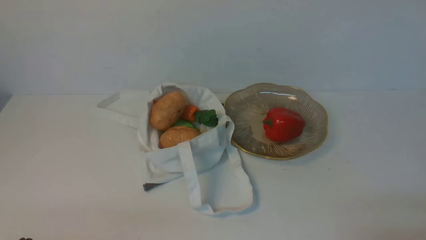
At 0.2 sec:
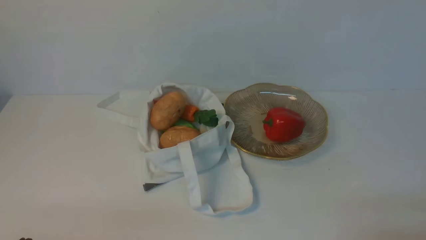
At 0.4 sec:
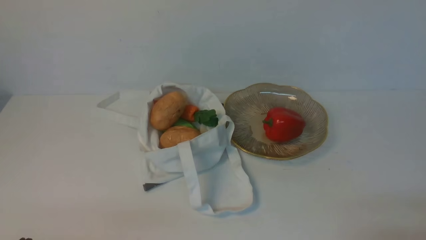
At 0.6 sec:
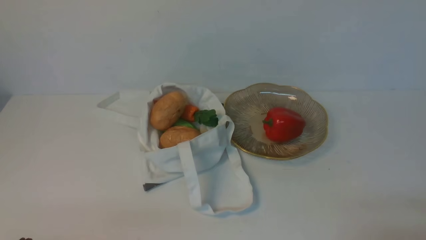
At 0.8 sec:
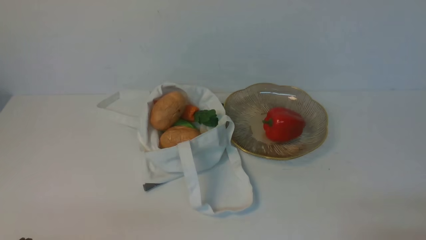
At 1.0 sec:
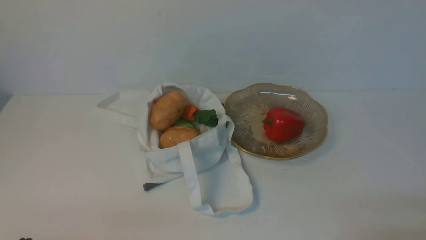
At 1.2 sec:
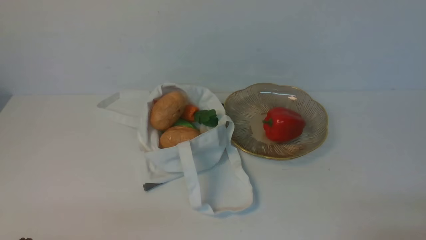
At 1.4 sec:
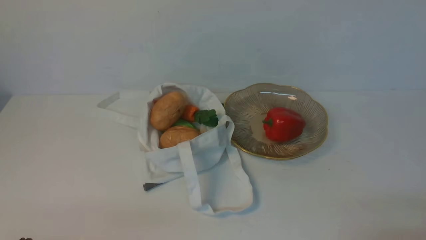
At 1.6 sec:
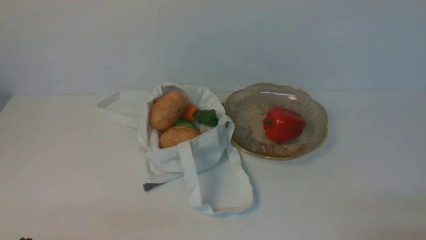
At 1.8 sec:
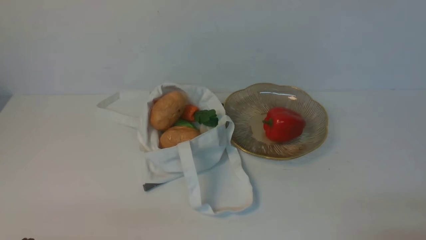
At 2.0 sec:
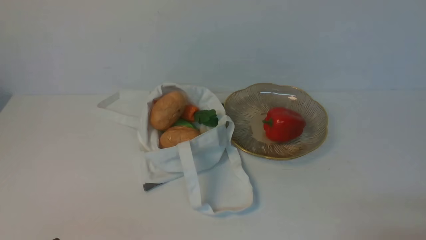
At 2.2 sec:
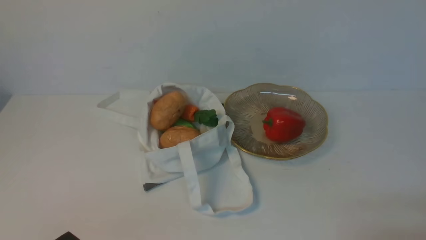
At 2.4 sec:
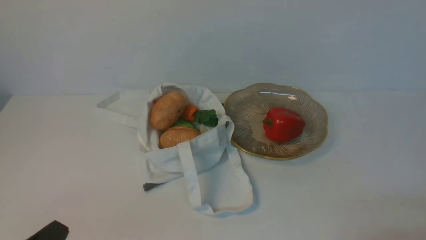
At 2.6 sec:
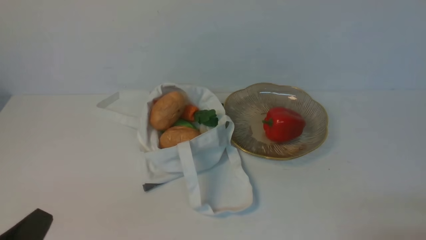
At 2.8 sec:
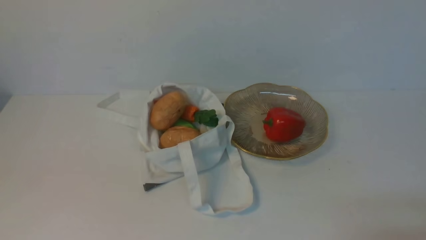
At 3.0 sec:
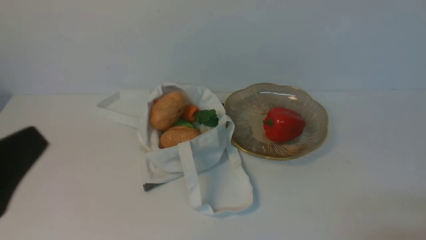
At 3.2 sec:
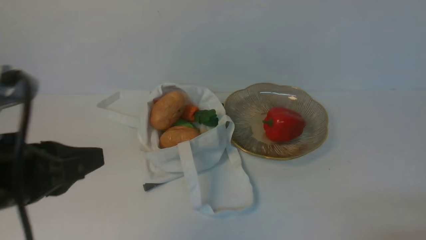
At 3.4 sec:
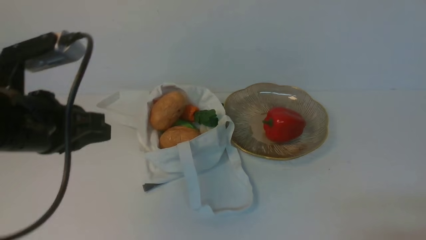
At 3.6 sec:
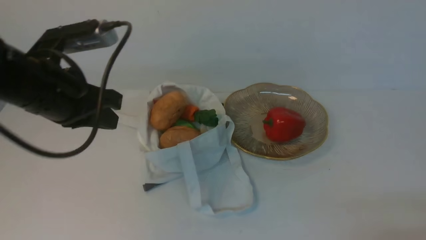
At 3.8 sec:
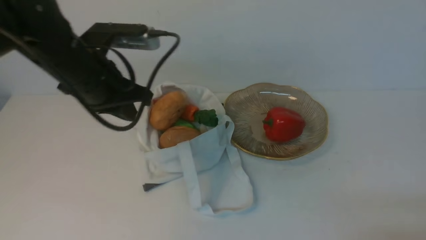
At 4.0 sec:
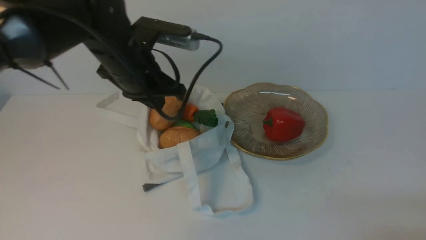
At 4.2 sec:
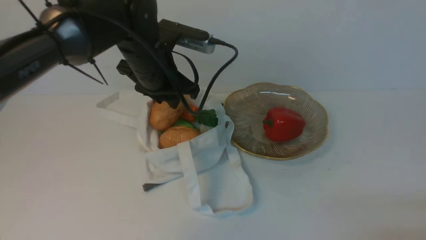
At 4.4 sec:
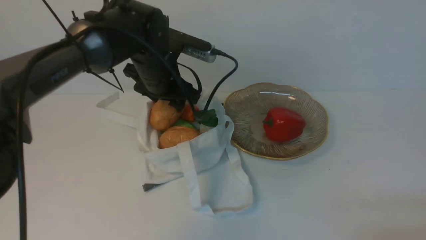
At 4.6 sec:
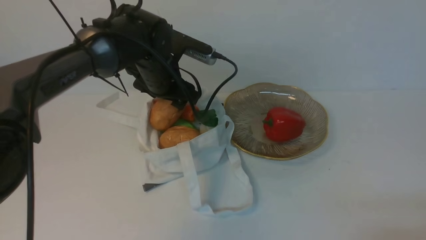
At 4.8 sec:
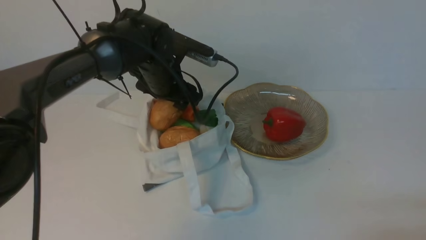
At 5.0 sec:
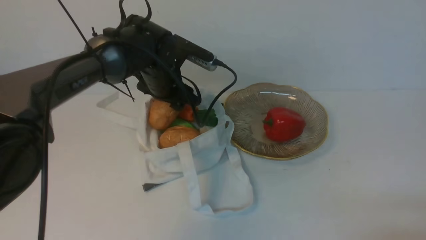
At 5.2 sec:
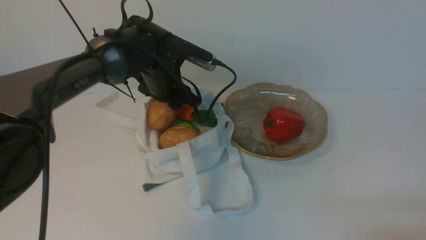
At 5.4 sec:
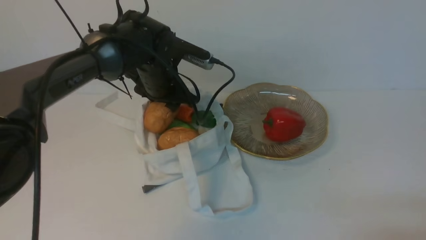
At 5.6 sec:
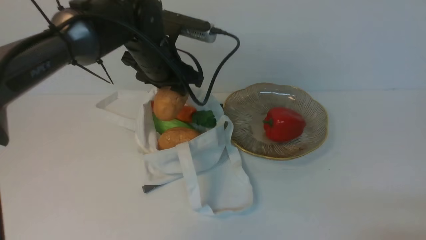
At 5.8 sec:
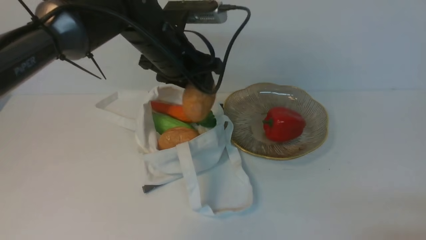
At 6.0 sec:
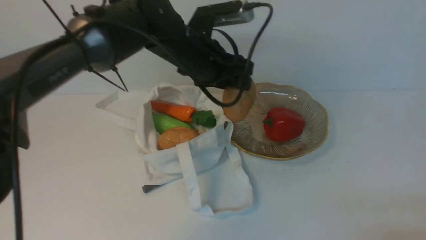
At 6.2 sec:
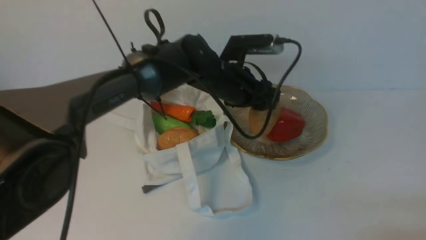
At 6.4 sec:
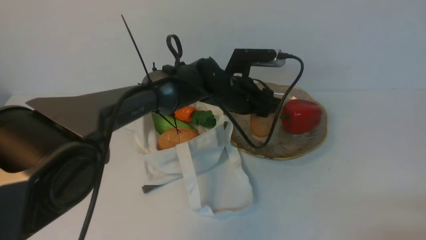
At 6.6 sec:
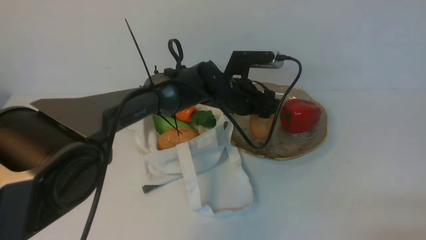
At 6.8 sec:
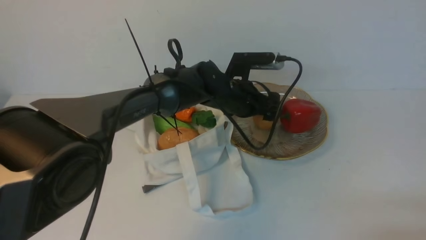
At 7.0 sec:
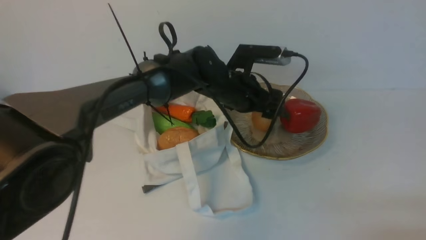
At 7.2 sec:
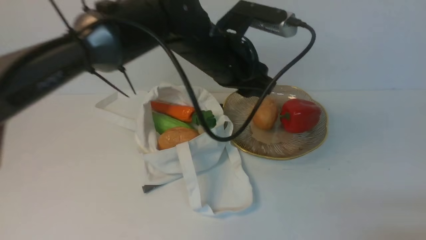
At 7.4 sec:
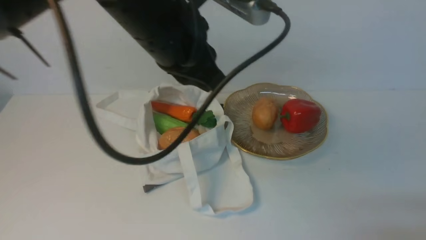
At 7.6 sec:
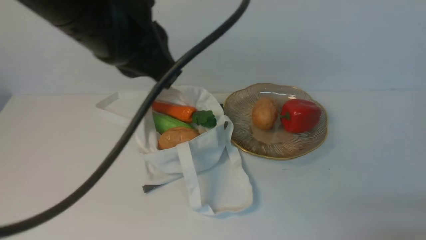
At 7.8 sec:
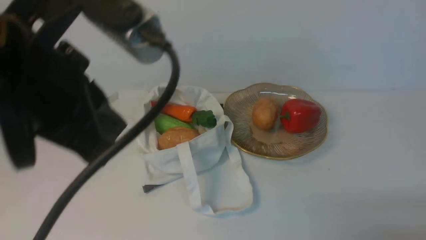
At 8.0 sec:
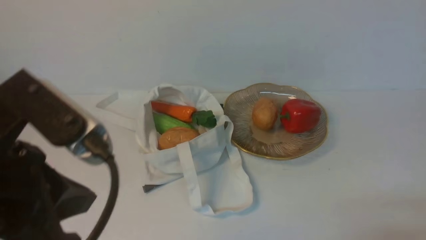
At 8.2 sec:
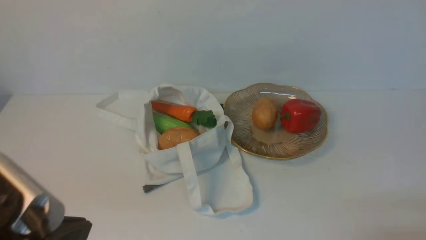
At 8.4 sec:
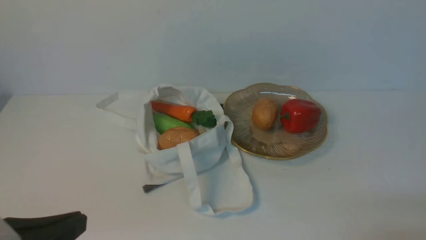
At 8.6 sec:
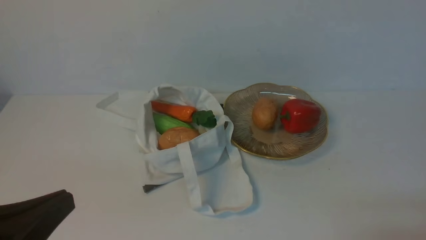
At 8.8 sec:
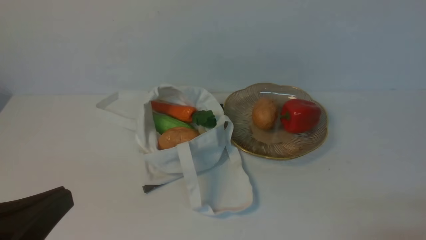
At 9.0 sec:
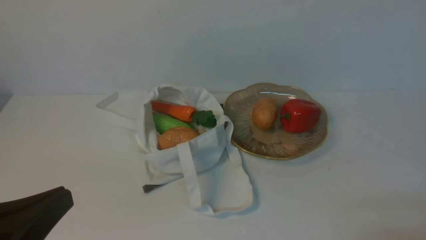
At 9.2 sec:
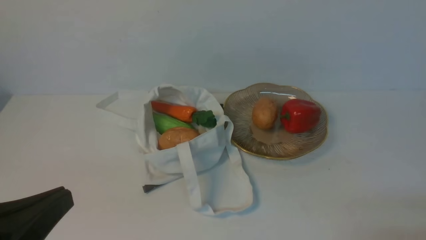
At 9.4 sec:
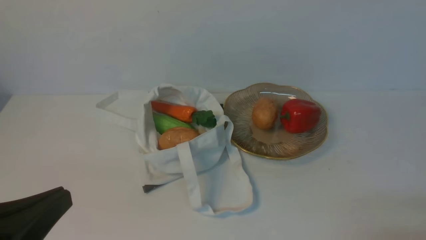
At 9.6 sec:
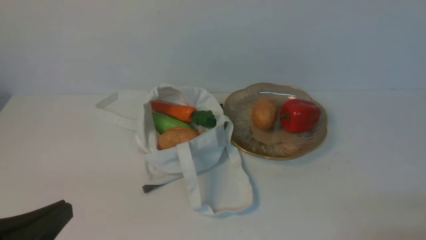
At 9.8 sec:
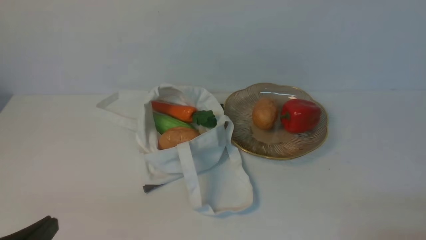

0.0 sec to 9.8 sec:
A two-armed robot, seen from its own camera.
Task of the whole recording: take vegetables from cloth bag on white table place on plate.
Step, 0.0 sec to 5.2 sec: Grasp the potato with left gripper.
Step, 5.4 sec to 7.2 sec: Place the potato on the plate with left gripper.
2.8 sec to 4.2 sec: The left gripper goes approximately 35 cm forward.
4.2 sec to 5.6 sec: The left gripper opens.
5.6 sec to 7.0 sec: The left gripper moves to the right, roughly 10 cm.
7.0 sec to 8.4 sec: The left gripper heads backward and to the left, covering some 40 cm, and closes up.
8.4 sec to 9.8 sec: The left gripper is displaced downward by about 5 cm.

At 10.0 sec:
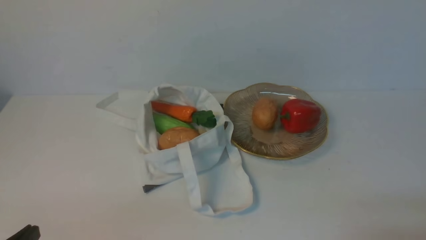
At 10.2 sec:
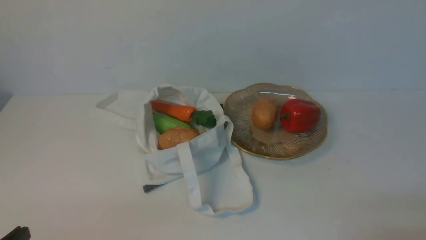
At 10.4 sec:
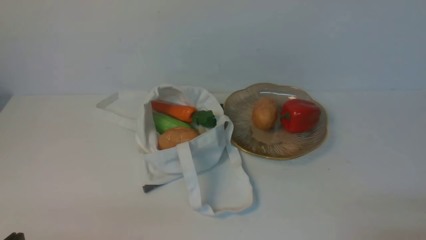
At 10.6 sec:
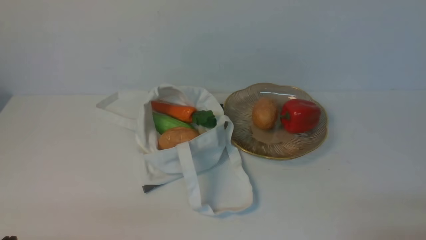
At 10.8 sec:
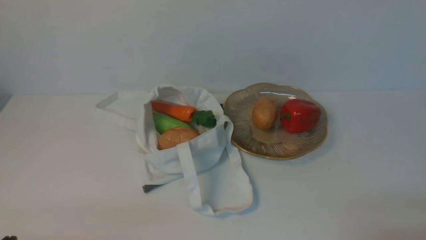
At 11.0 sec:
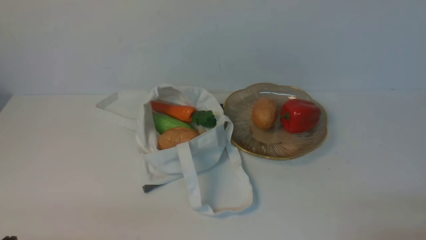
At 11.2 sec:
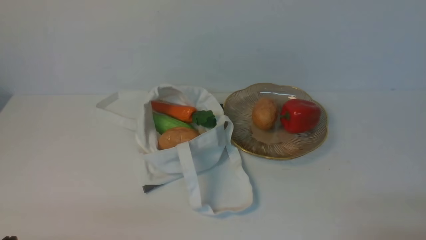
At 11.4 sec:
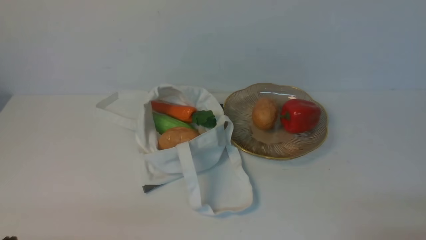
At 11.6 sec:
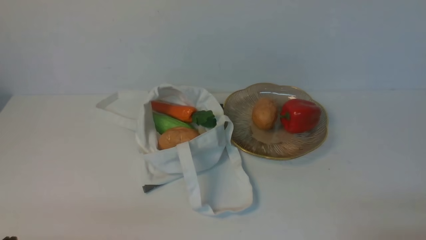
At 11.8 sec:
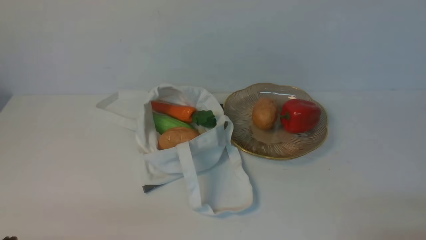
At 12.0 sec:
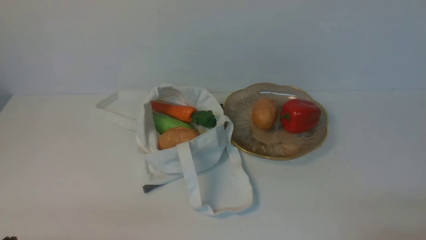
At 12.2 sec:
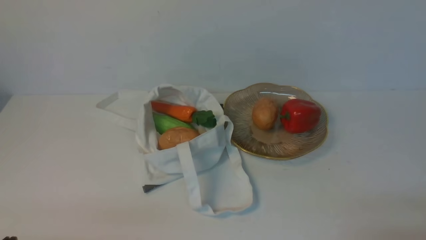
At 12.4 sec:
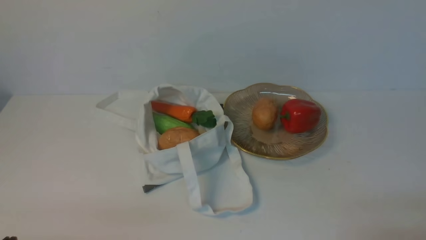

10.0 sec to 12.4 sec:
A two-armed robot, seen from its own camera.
Task of the whole recording: take vegetables from cloth bag on white table place on plate.
11.2 sec to 12.4 sec: Both grippers stay about where they are.
